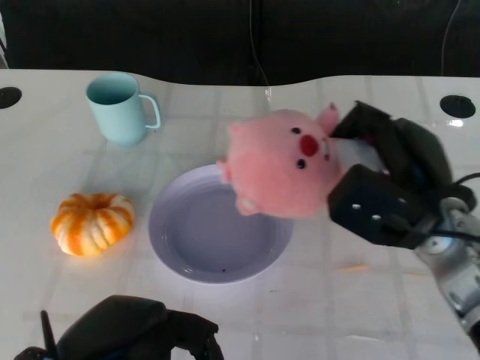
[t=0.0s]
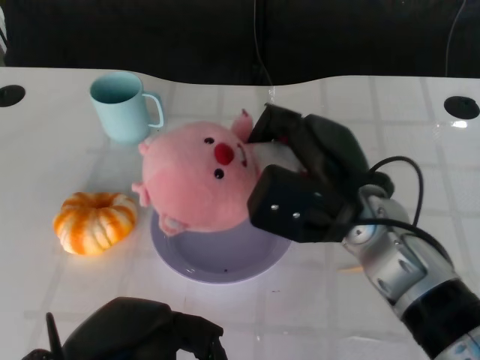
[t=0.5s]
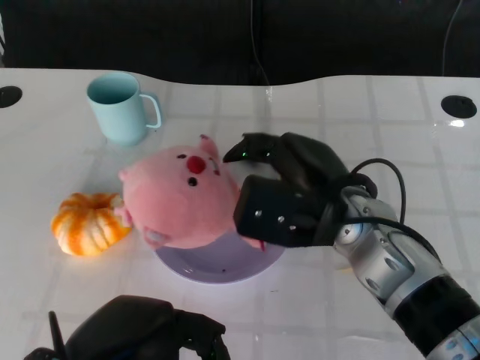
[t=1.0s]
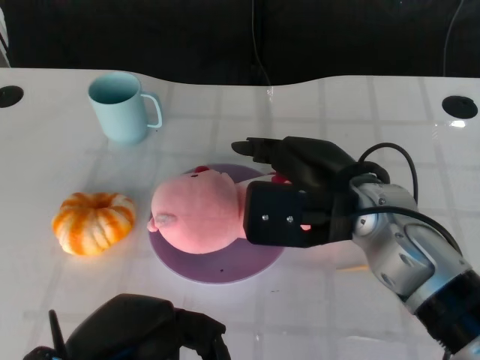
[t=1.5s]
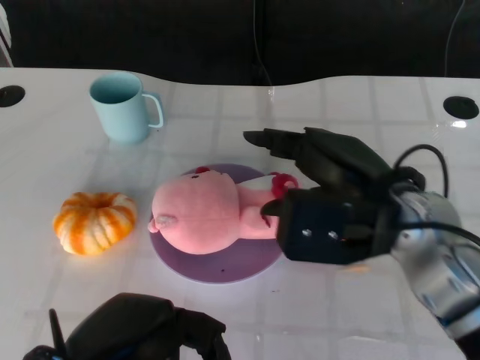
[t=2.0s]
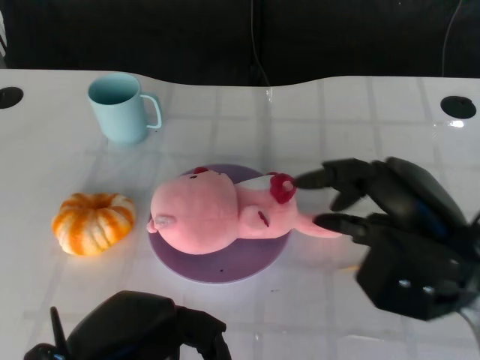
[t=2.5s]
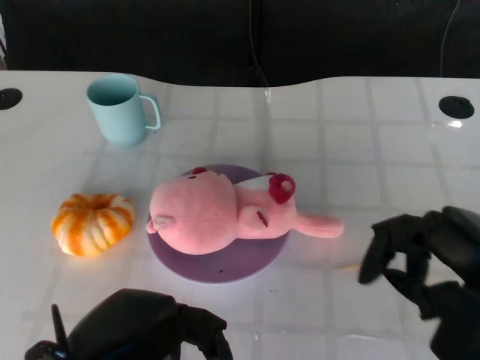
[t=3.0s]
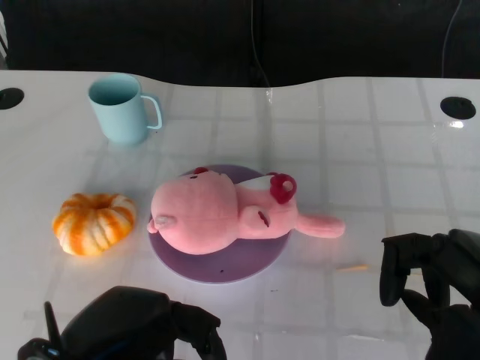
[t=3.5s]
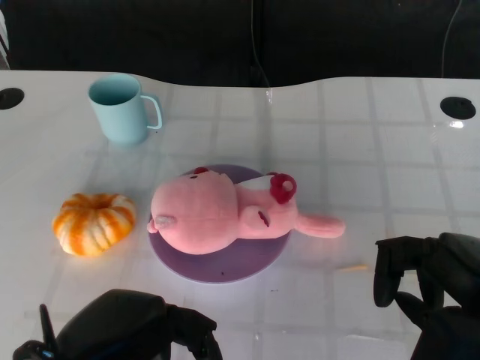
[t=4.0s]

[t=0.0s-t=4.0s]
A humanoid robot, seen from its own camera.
Task of the whole recording: Pick up the doll on the other side of the plate and place it into the plate.
Step, t=0.5s to t=2.0s: Place the pink doll into the plate with the right gripper.
t=0.0s to t=2.0s: The right hand shifts by approximately 5 cm.
t=2.0s to t=4.0s: The right hand moves to the right and backward, approximately 15 cm.

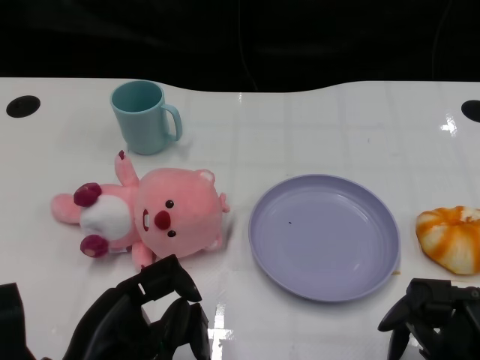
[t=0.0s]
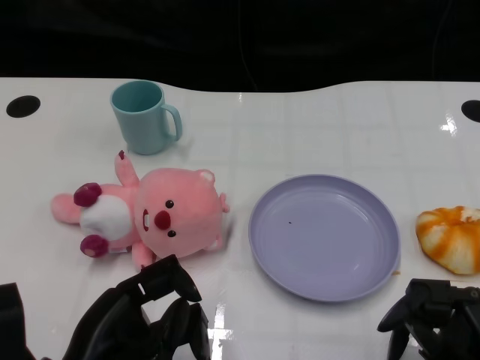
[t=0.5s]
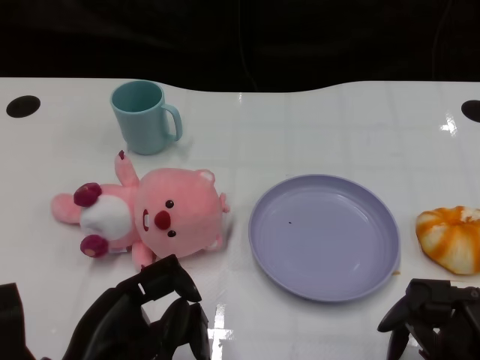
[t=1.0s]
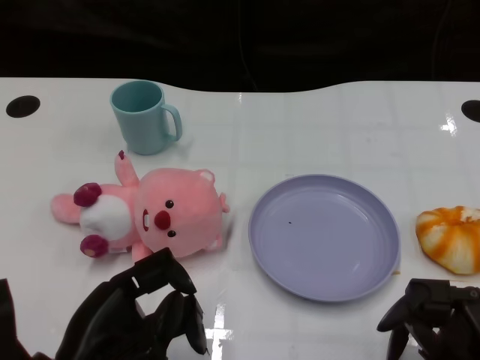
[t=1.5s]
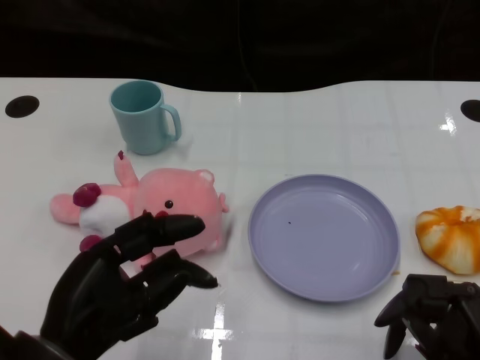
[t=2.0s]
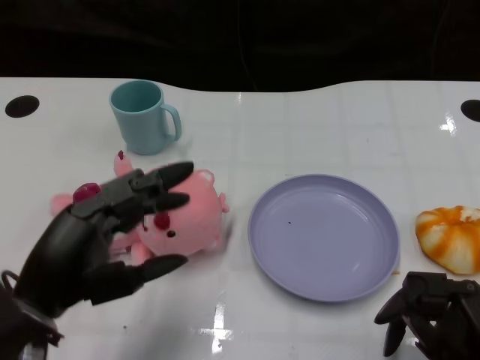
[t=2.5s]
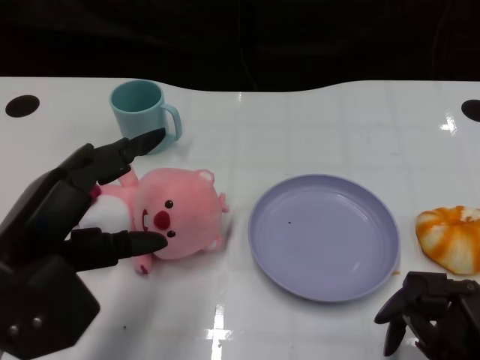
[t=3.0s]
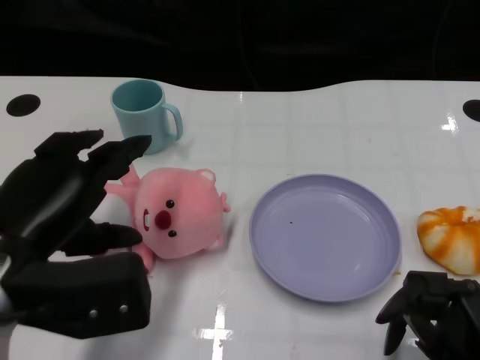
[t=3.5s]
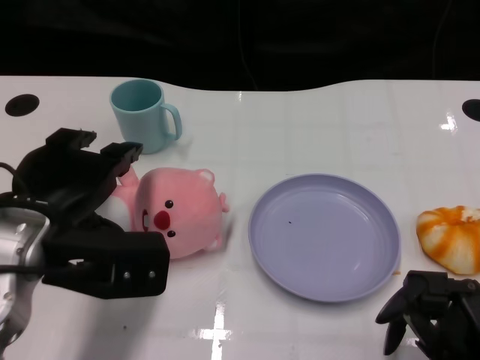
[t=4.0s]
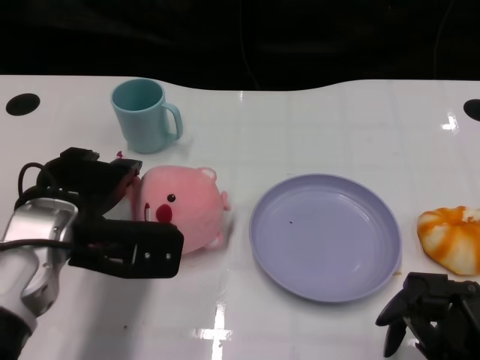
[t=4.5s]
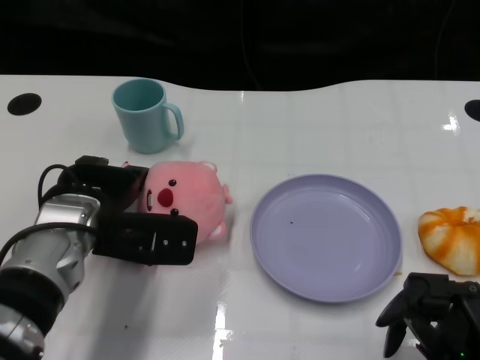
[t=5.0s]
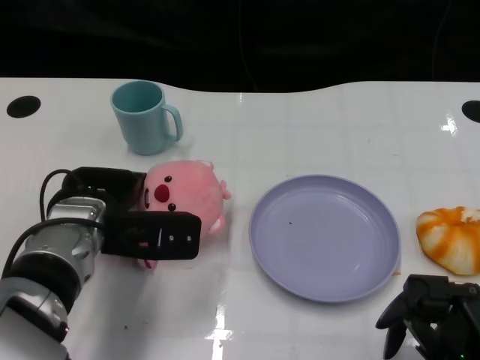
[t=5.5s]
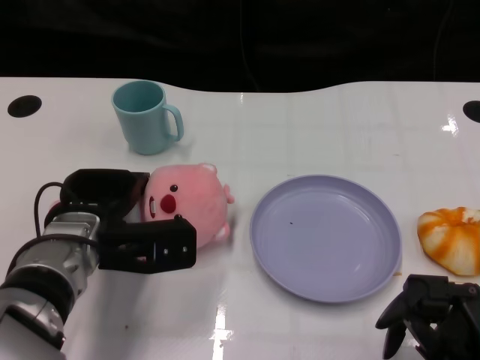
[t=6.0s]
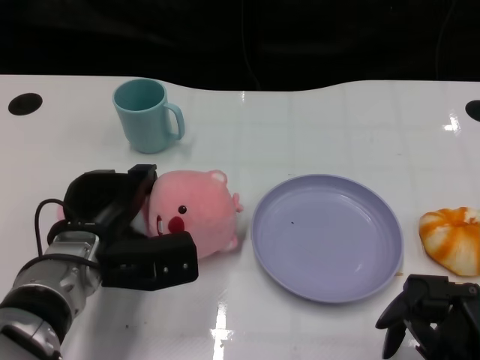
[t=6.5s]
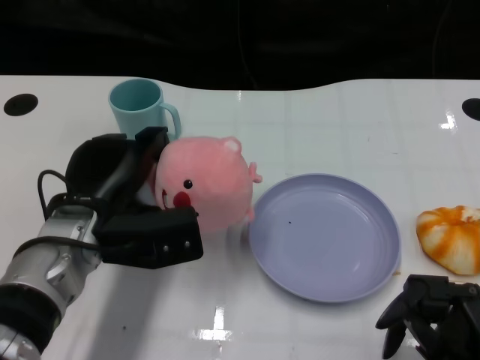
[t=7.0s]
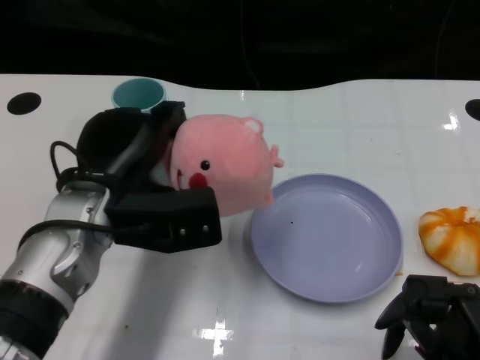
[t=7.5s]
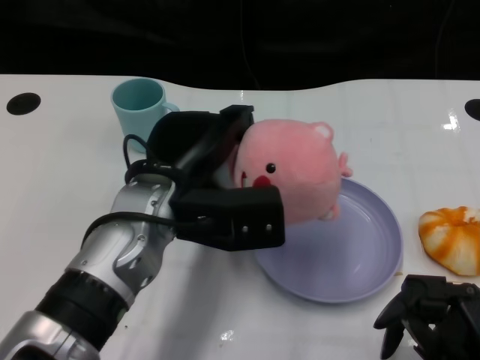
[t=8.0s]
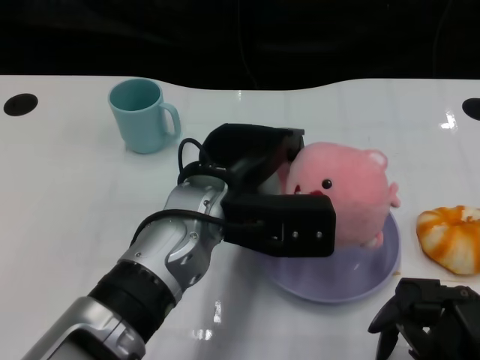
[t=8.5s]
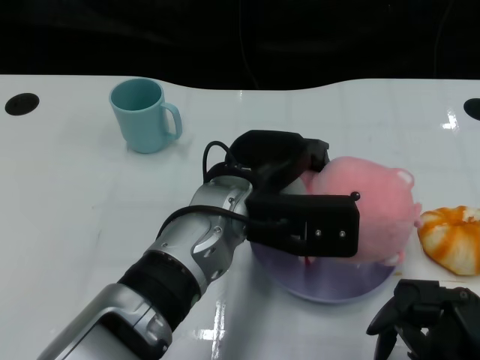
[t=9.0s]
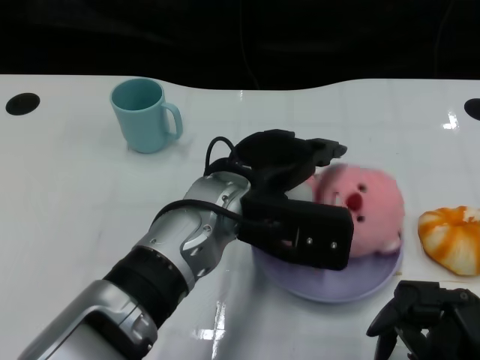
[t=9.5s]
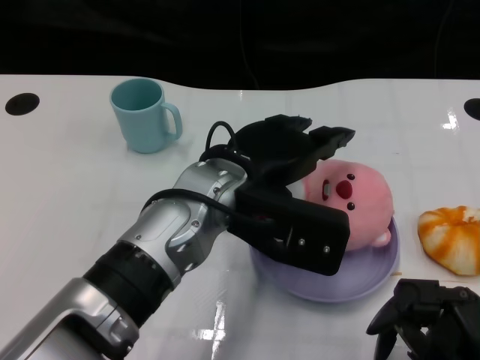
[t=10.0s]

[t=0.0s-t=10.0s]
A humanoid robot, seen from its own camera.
Task of the whole recording: Pick up the doll on one side of the plate and place it into the plate.
Step, t=1.5s to t=6.5s: Grasp the pink doll with the left gripper.
Step, t=7.0s to t=9.5s: Place the pink doll into the plate with the left gripper.
t=2.0s to t=4.0s: The left hand is displaced forward and upward by roughly 10 cm.
t=4.0s to t=6.0s: The left hand travels downward and forward by approximately 10 cm.
t=6.0s to t=8.0s: The left hand moves to the right and upward, about 10 cm.
t=8.0s to t=10.0s: The left hand is displaced to the right by approximately 5 cm.

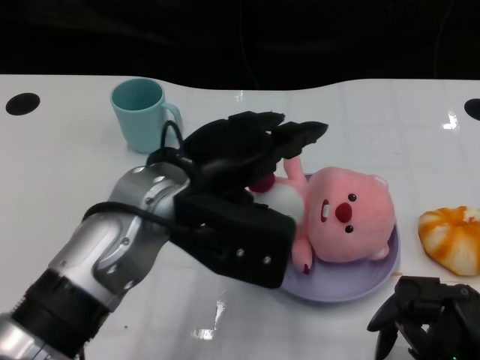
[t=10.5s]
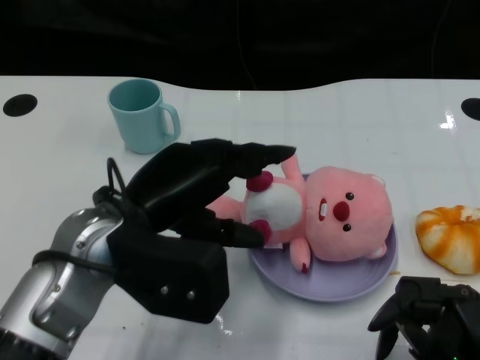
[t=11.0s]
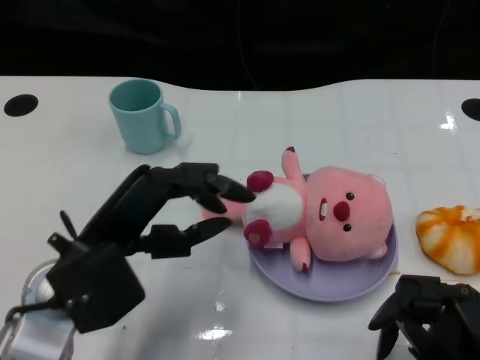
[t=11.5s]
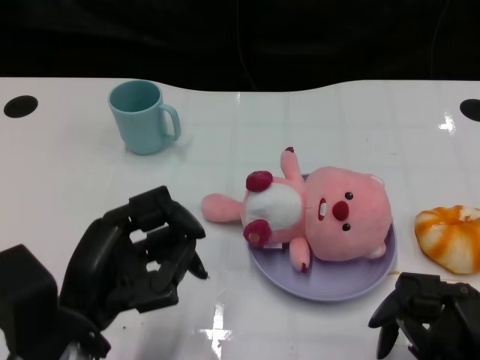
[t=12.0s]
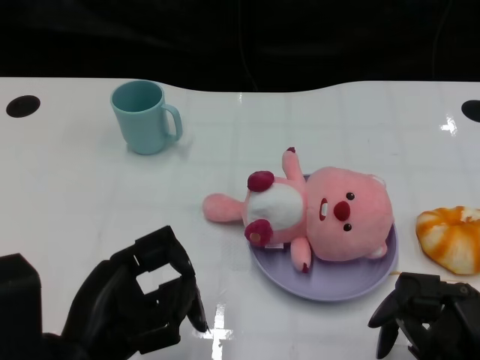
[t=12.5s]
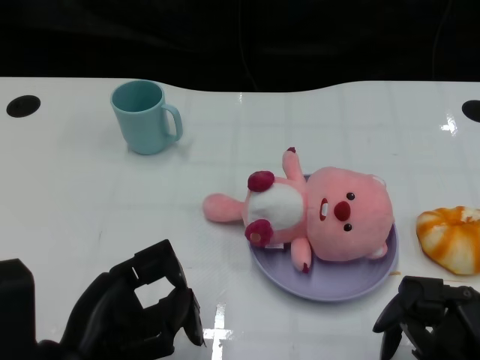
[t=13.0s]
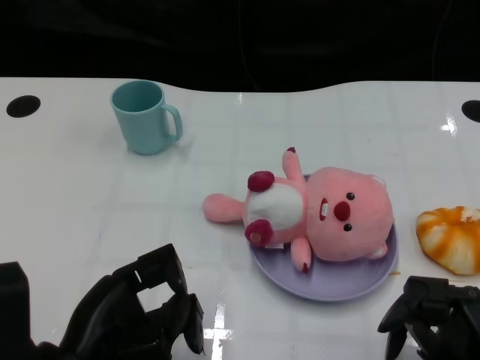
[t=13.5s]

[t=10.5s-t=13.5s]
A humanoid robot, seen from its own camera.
Task of the whole recording: Pick up the doll on one side of the plate and place it into the plate.
t=10.5s to t=12.0s: The left hand moves to the left, backward and downward, about 15 cm.

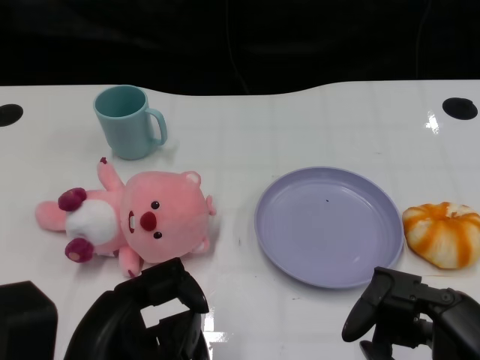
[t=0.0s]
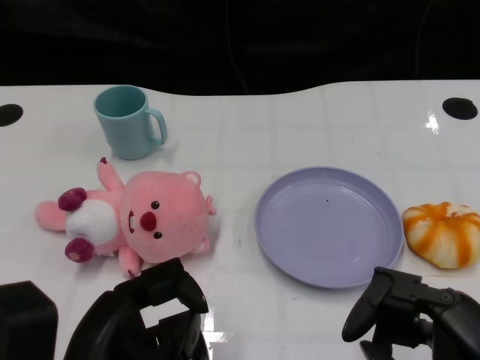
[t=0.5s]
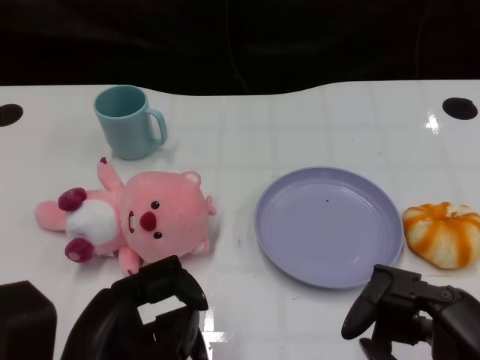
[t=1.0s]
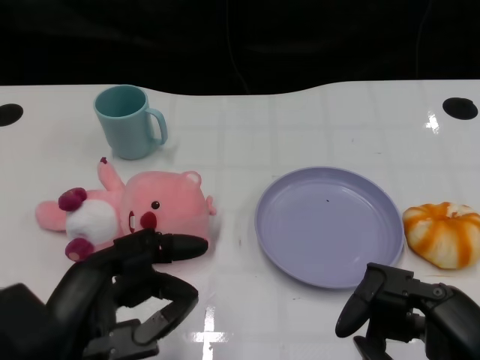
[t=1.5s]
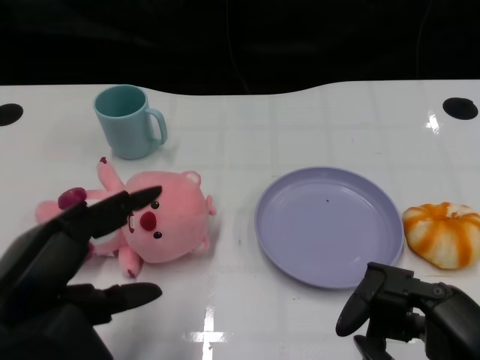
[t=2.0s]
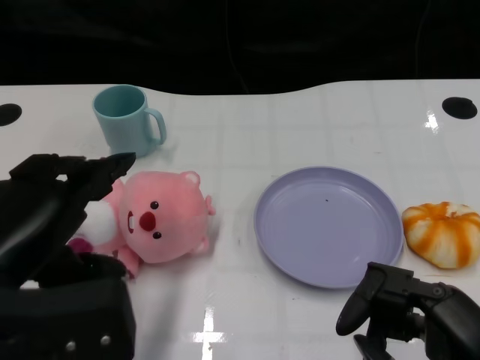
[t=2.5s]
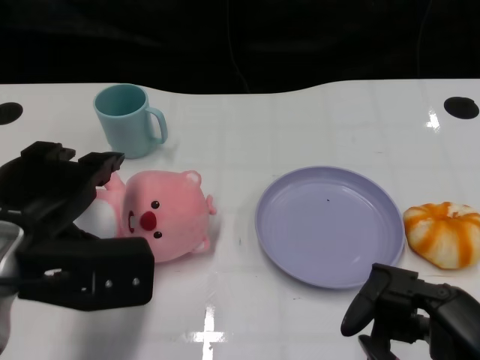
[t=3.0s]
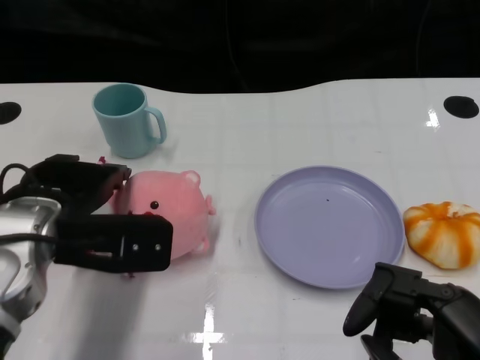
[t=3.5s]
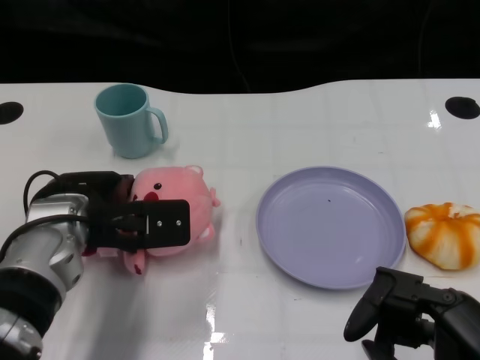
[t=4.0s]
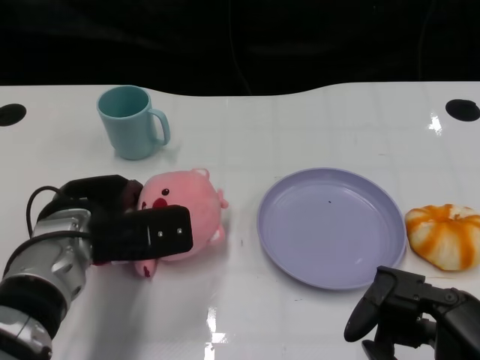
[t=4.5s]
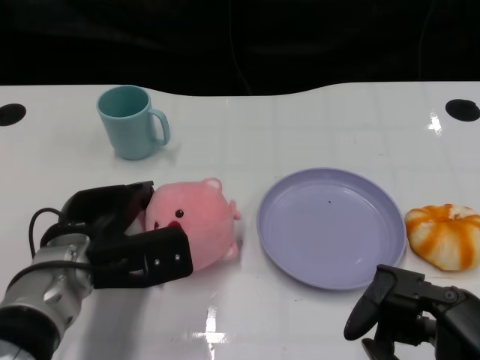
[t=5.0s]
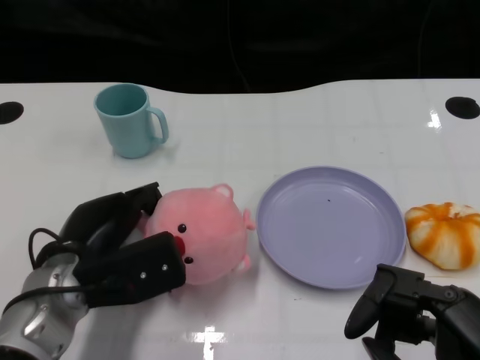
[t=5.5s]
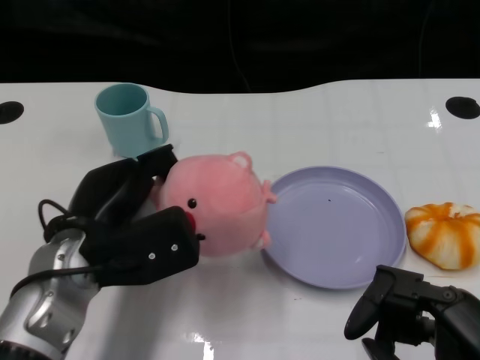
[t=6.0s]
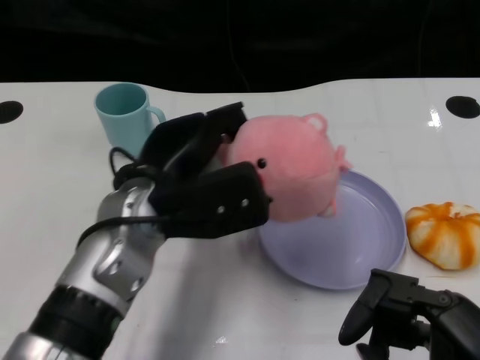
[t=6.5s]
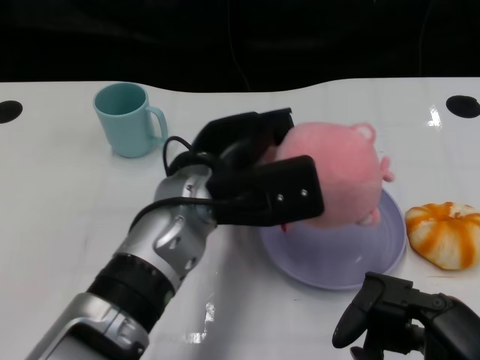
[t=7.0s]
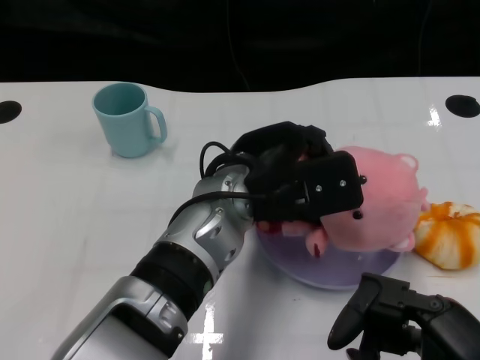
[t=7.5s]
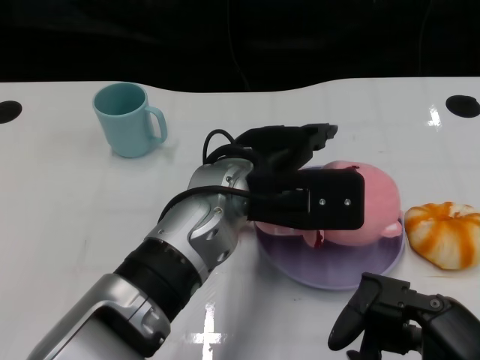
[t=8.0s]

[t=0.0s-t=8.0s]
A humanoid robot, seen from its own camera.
Task of the whole recording: Pick up the doll on one side of the plate and place it into the plate.
Step, t=1.0s to t=5.0s: Grasp the pink doll with the left gripper.
t=2.0s to t=4.0s: The left hand is displaced forward by approximately 15 cm.
t=6.0s to t=8.0s: The left hand moves to the right, roughly 15 cm.
